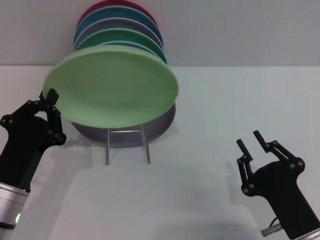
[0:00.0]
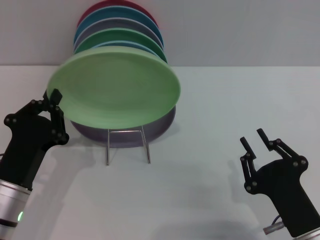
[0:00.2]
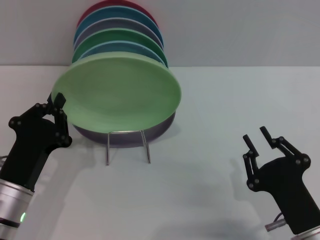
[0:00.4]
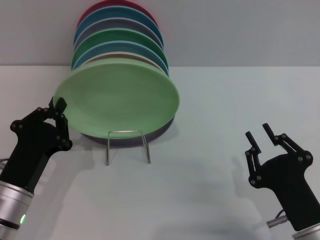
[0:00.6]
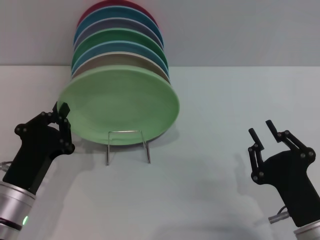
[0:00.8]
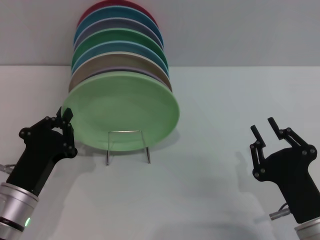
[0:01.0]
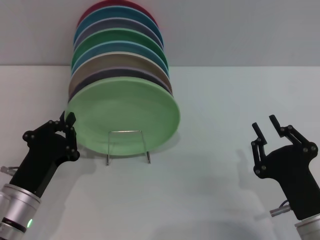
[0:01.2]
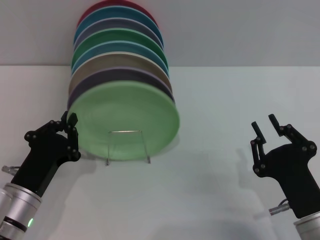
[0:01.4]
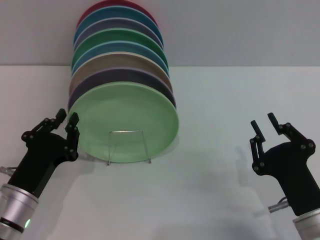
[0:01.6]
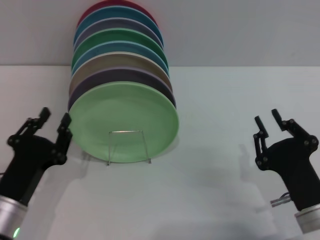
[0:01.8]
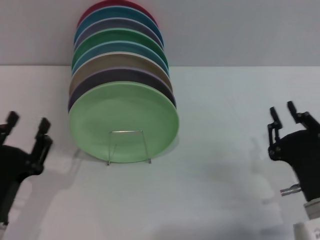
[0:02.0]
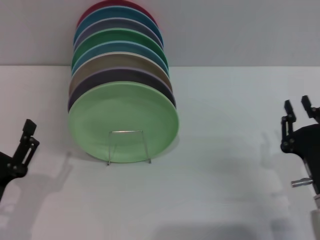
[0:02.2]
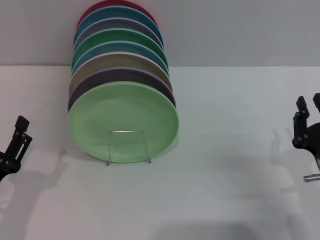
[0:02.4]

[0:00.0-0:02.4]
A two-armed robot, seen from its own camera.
Task of the whole recording: Grip the plate with one hand, pass it to the other, then set it on the shelf.
Step, 0:00.0 to 0:01.6: Place the plate on the shelf with the left gripper.
0:01.2 to 0:02.4: The right gripper changes place by some 5 cm, while the left gripper goes roughly 5 cm backward, and opens.
